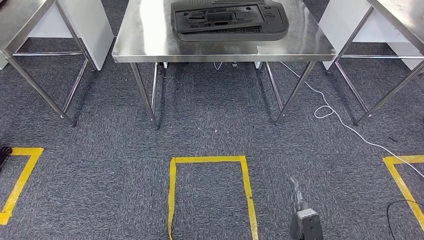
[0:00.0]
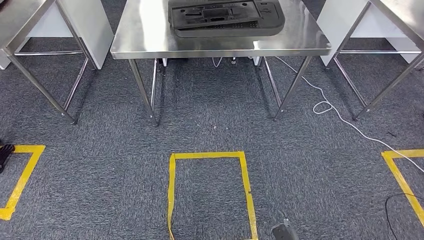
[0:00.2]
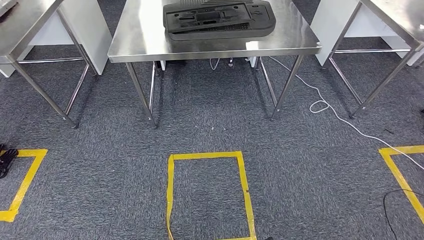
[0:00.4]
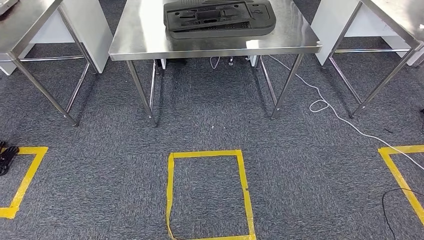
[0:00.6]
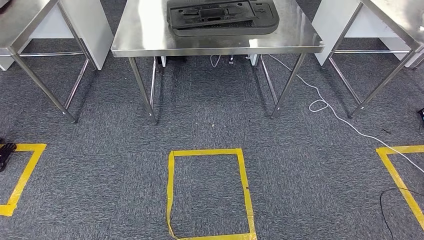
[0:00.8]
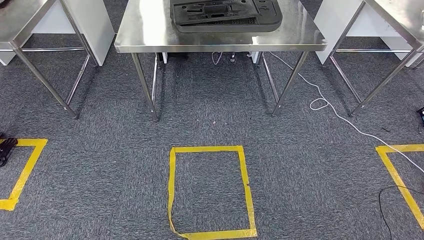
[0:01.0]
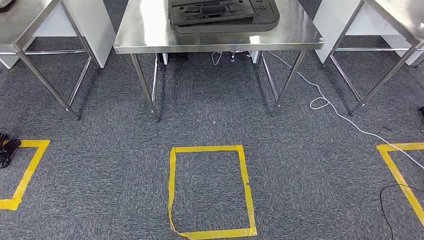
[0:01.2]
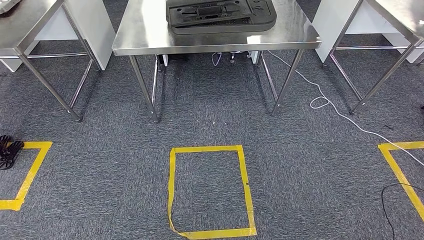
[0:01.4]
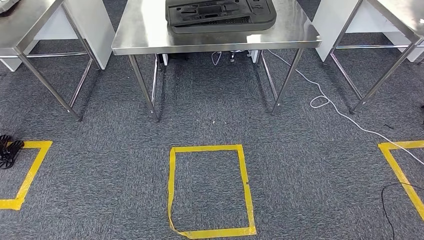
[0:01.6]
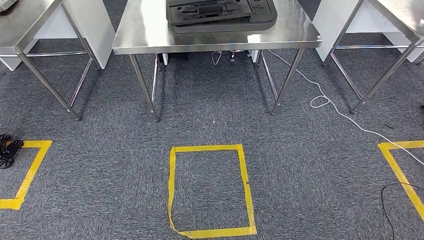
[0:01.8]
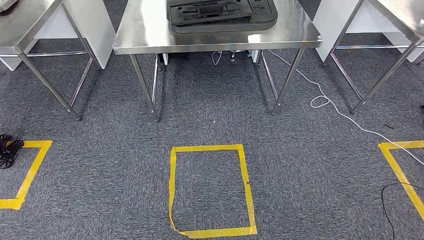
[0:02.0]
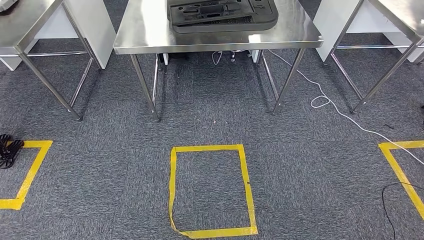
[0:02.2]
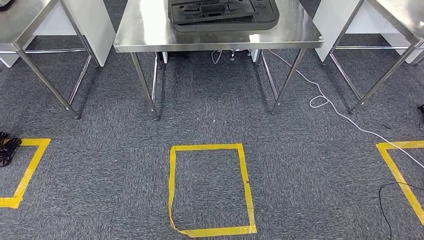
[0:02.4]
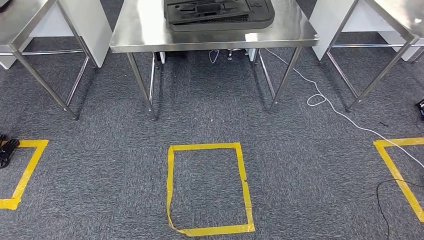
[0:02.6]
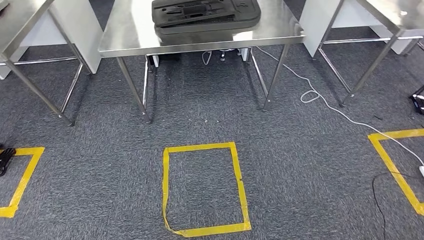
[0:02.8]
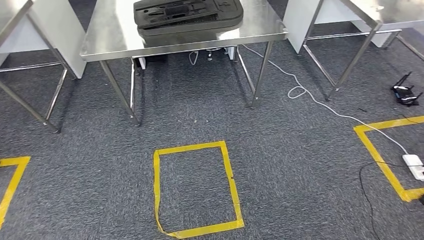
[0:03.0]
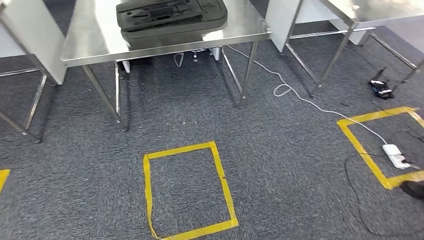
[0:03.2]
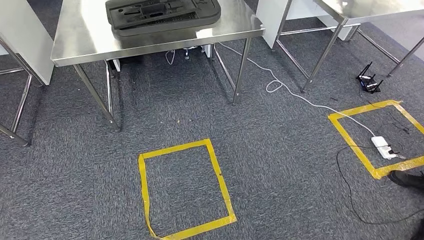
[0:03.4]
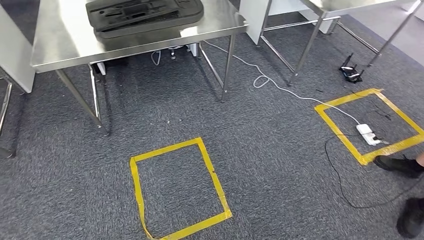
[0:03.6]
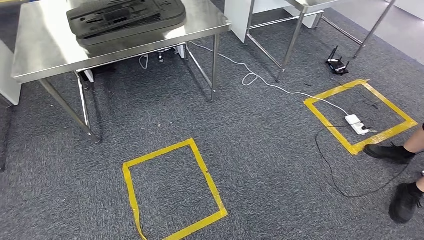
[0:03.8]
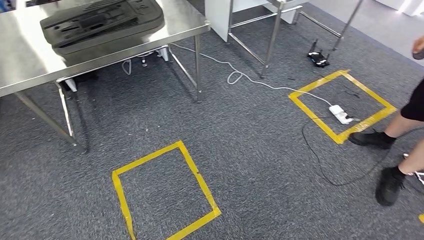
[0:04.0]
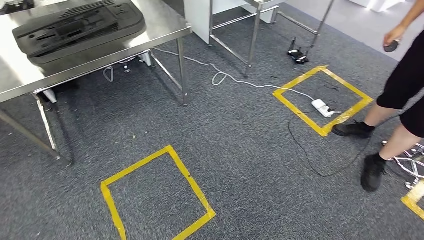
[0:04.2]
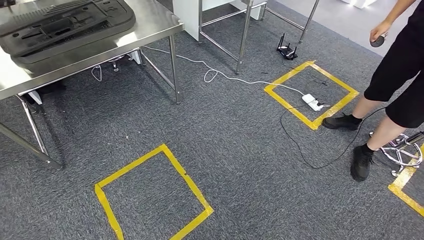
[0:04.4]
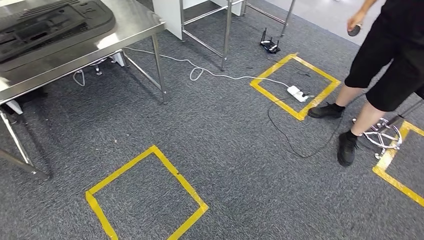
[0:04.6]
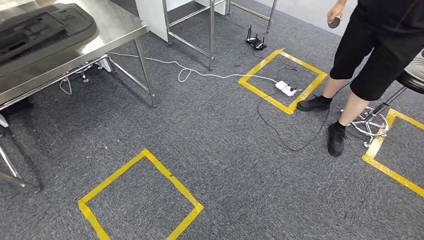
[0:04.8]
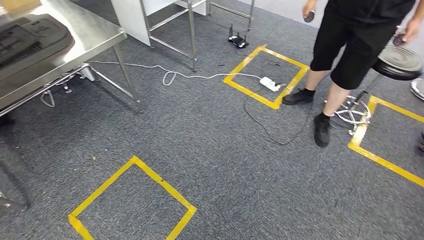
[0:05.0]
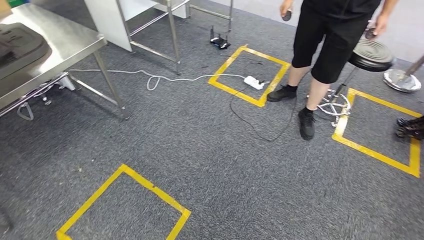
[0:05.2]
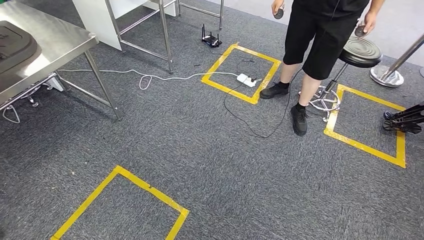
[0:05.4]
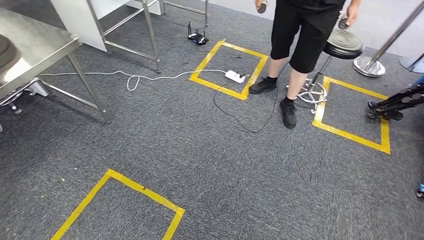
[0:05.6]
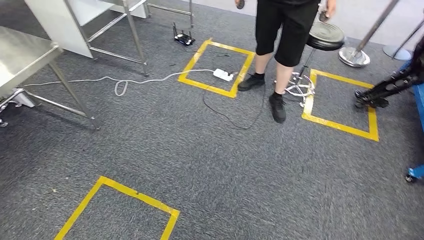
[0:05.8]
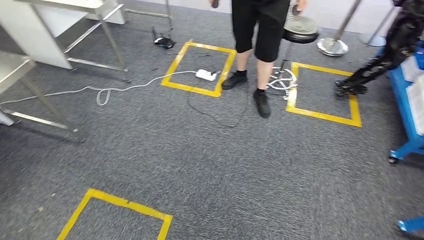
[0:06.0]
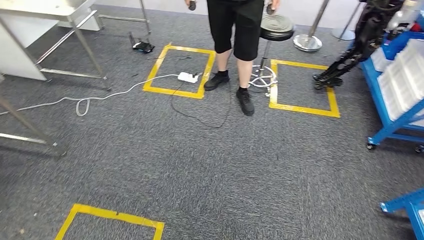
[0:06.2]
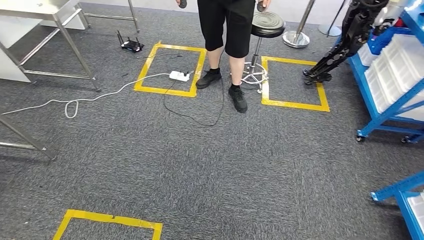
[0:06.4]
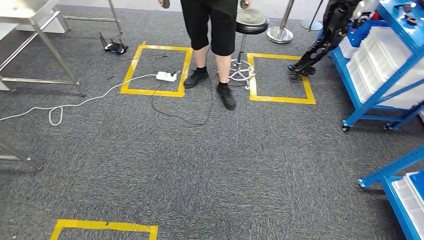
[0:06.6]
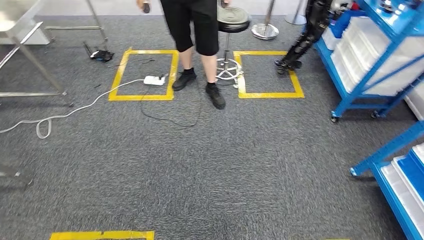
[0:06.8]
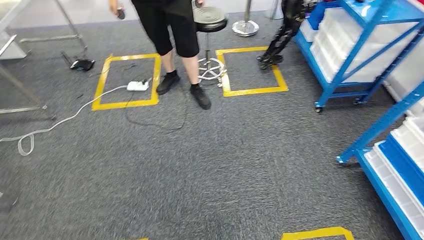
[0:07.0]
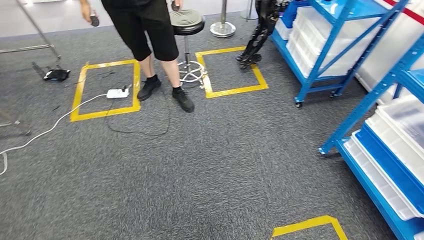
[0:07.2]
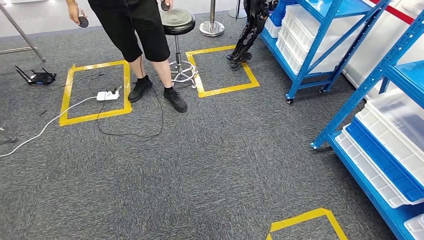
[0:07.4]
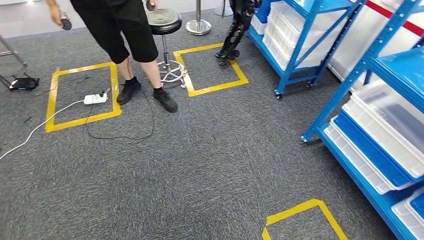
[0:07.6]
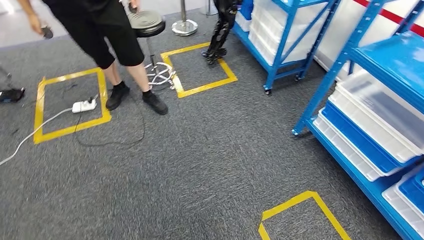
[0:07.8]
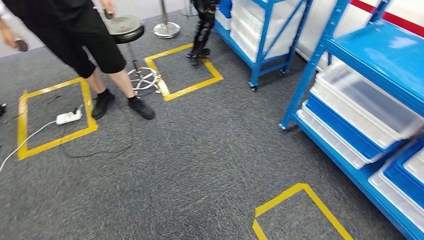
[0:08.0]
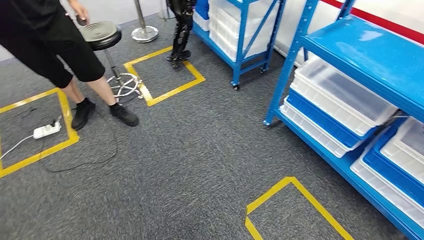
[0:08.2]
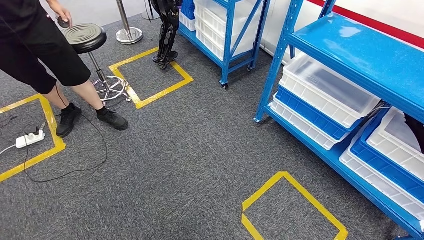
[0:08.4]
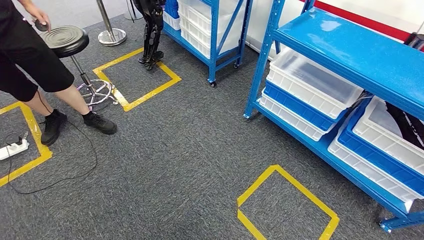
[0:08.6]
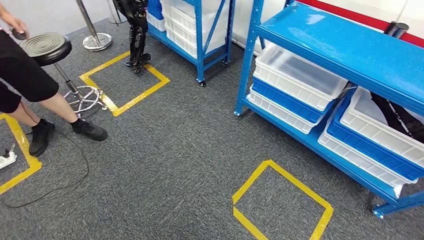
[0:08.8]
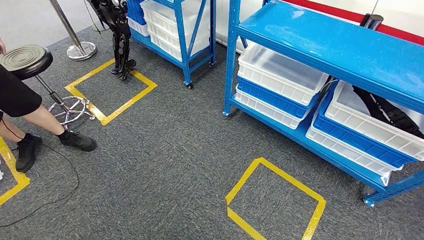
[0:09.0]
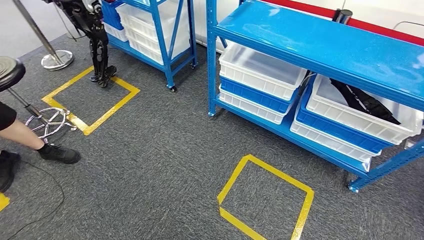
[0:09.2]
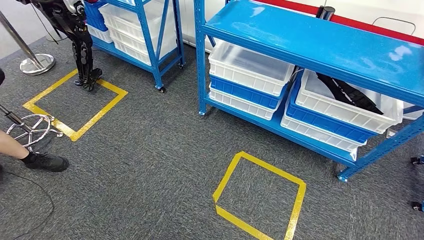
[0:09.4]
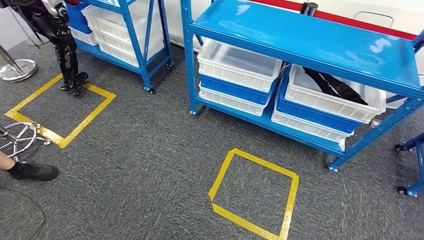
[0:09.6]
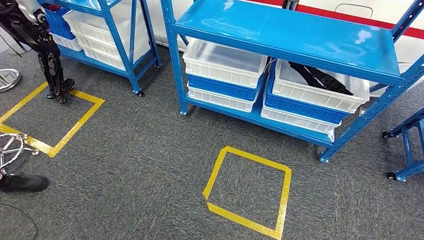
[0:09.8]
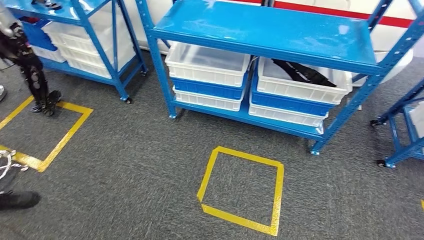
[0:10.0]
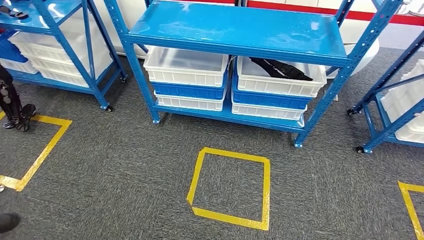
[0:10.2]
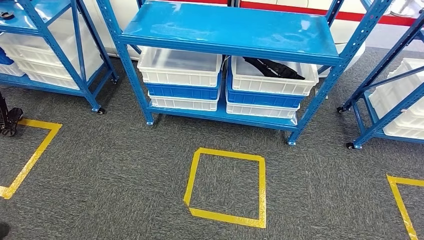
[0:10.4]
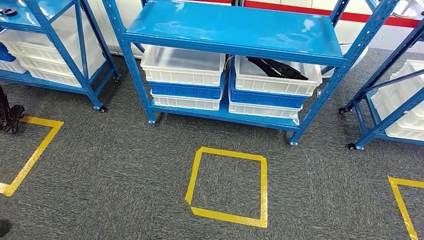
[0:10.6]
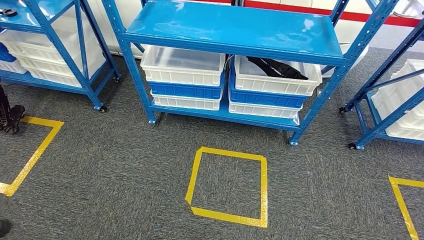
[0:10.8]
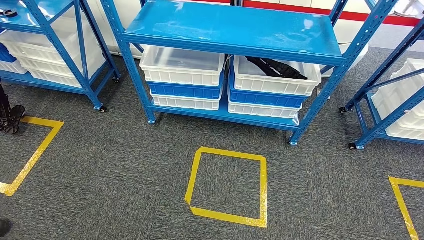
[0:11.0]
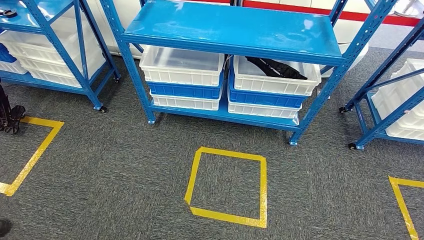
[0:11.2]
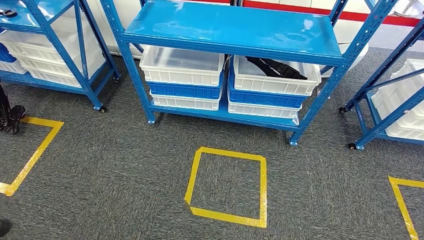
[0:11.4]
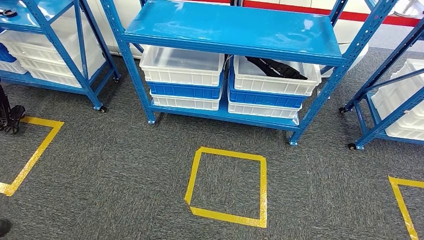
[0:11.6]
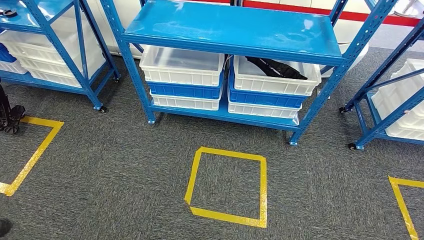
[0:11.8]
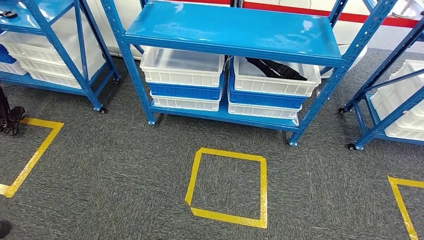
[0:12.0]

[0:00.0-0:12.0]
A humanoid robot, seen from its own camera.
0:10.4 to 0:12.0: Both hands stay about where they are.

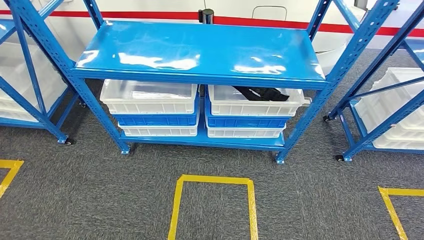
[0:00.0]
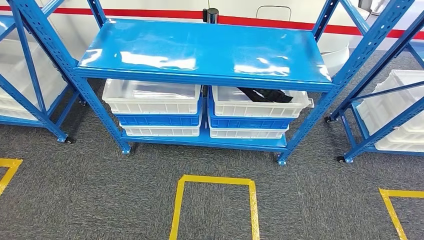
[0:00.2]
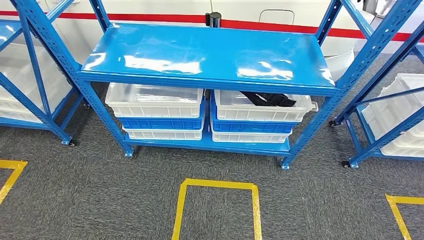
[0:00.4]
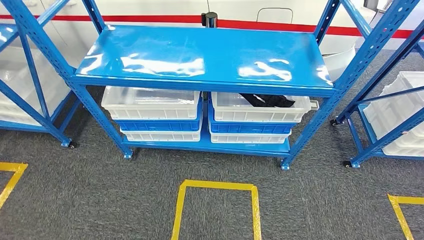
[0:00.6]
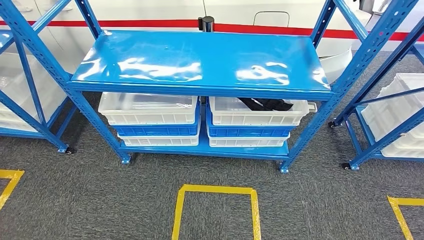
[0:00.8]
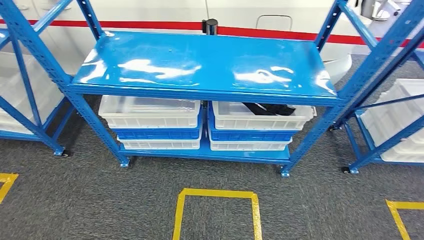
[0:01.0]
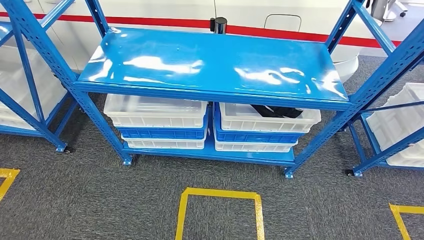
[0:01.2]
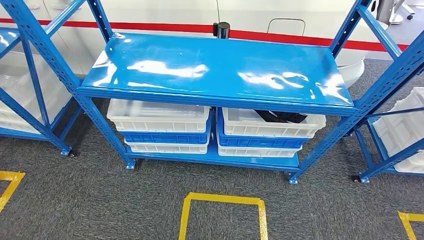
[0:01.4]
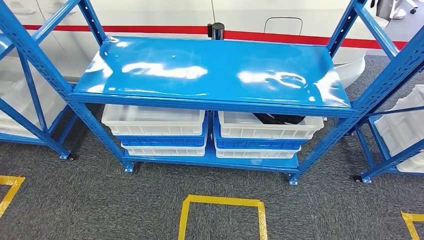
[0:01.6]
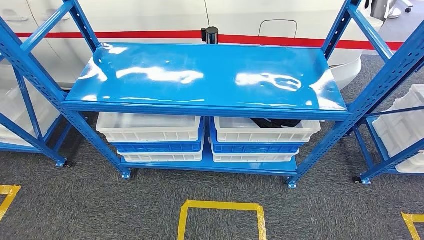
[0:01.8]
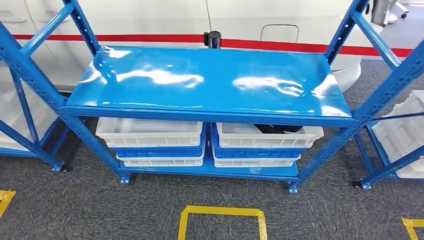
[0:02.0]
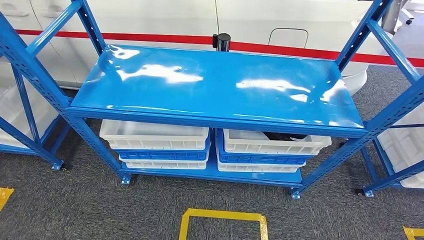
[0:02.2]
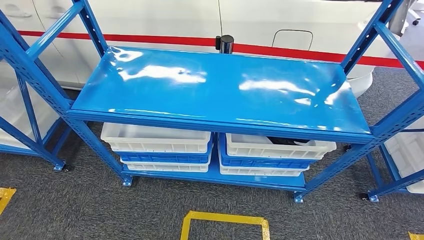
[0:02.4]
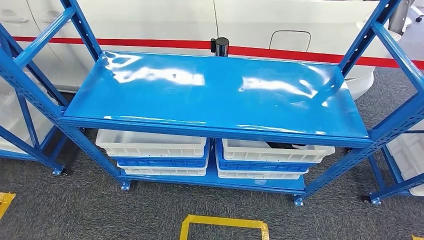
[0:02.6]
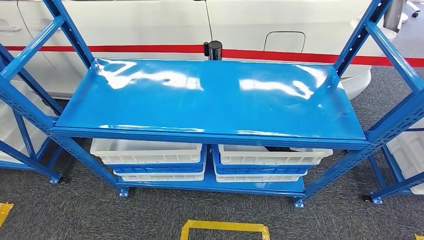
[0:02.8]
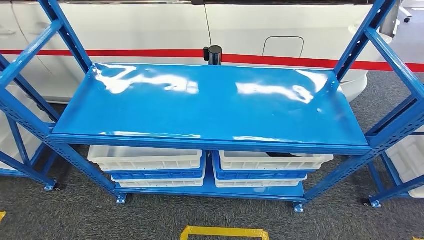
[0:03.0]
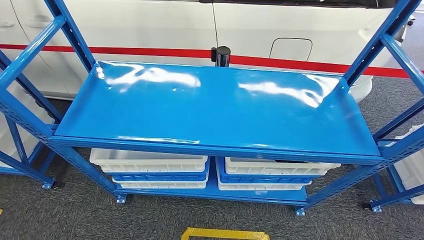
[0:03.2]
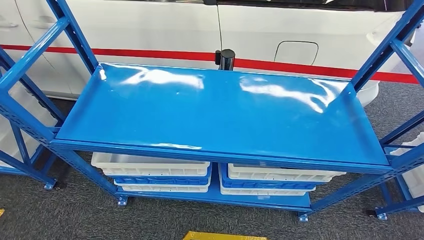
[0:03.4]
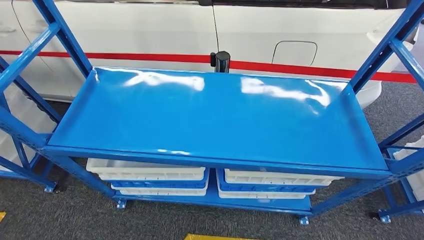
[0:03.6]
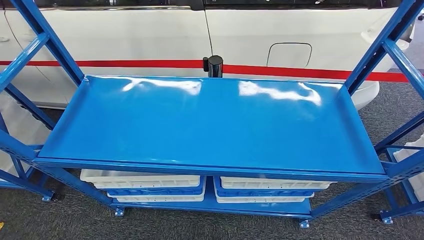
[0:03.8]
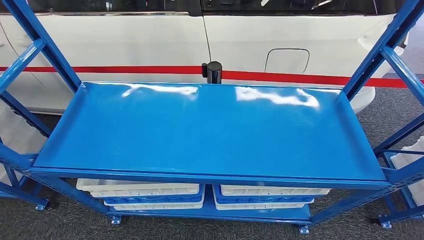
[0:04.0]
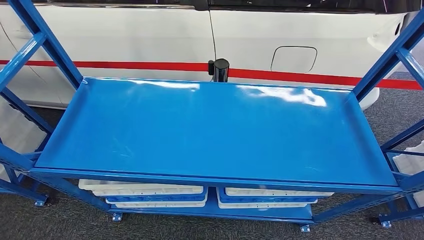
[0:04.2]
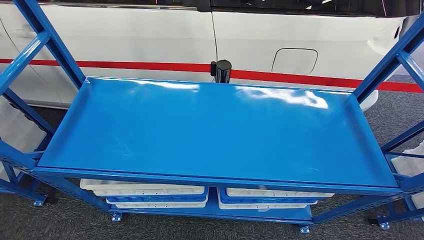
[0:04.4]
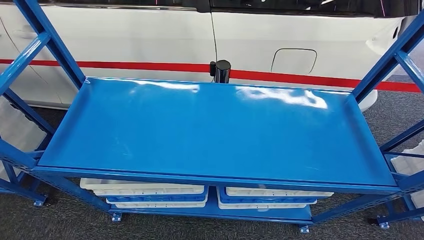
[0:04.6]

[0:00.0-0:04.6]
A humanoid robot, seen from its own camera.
Step, 0:00.0 to 0:04.6: Return to the initial position at the shelf.
